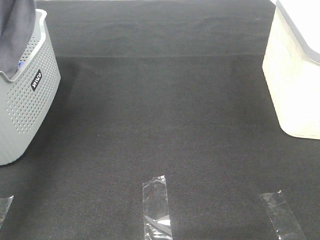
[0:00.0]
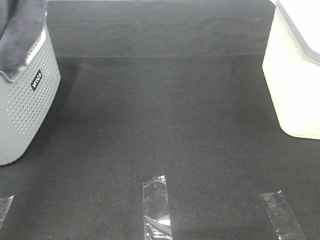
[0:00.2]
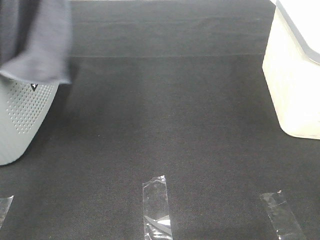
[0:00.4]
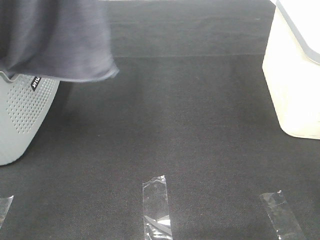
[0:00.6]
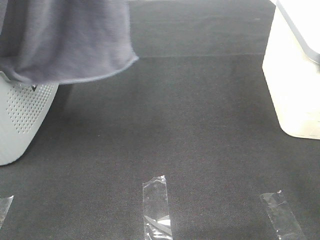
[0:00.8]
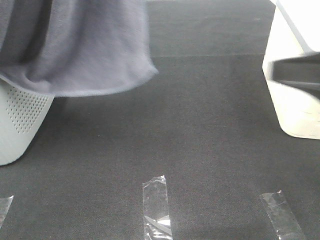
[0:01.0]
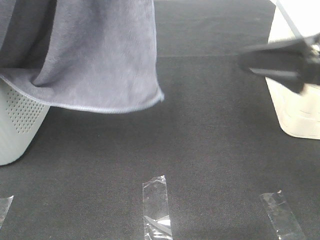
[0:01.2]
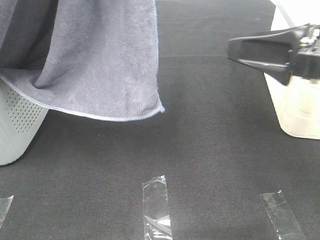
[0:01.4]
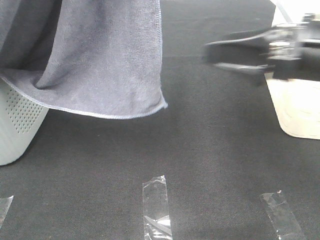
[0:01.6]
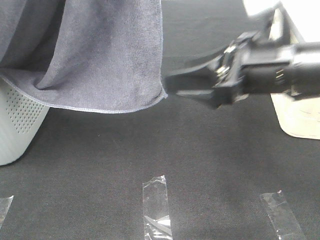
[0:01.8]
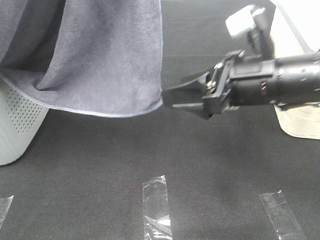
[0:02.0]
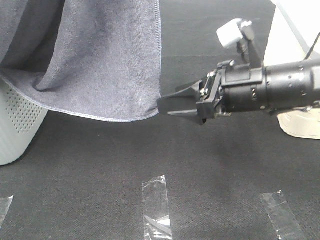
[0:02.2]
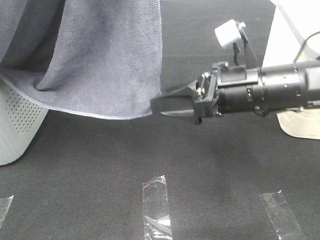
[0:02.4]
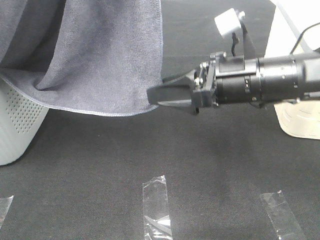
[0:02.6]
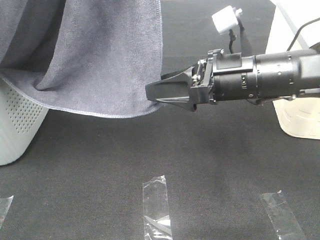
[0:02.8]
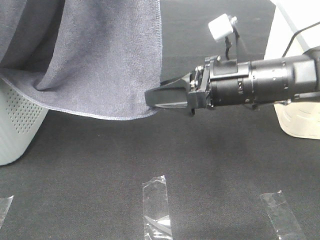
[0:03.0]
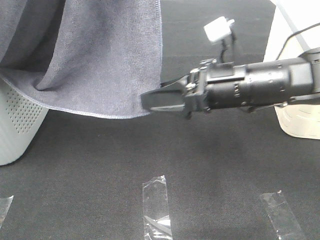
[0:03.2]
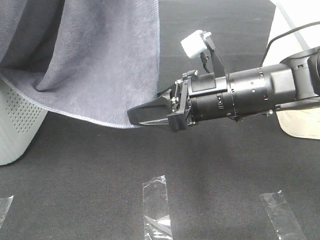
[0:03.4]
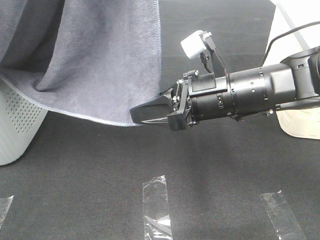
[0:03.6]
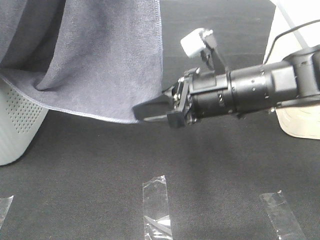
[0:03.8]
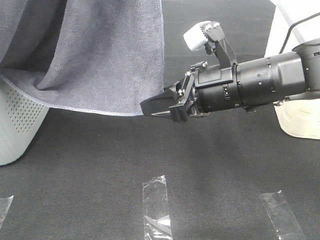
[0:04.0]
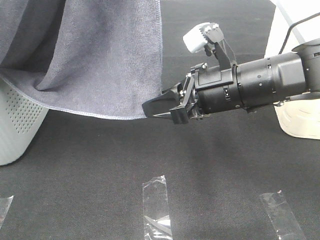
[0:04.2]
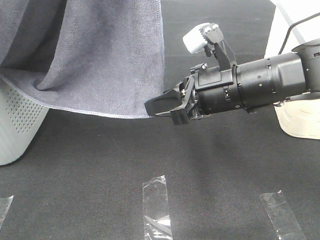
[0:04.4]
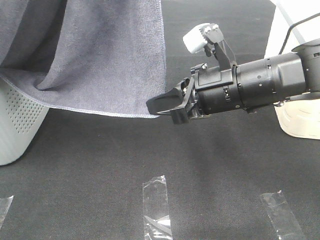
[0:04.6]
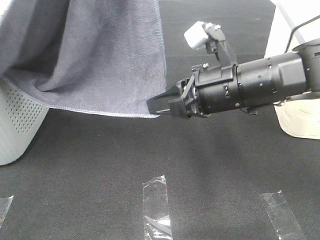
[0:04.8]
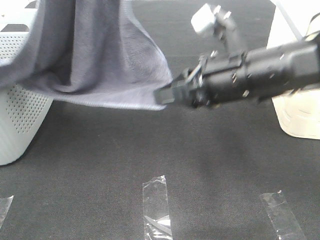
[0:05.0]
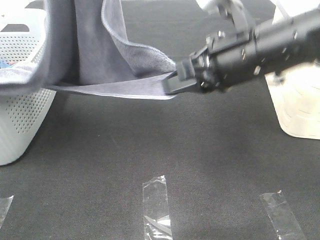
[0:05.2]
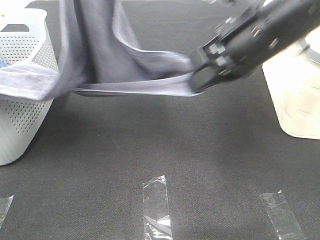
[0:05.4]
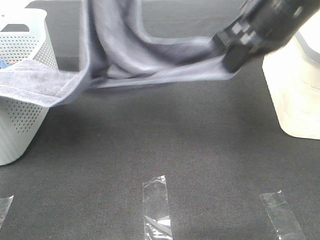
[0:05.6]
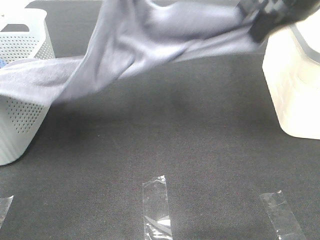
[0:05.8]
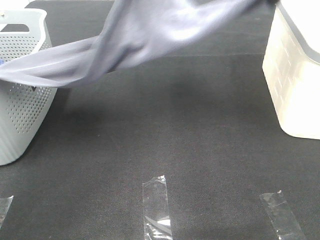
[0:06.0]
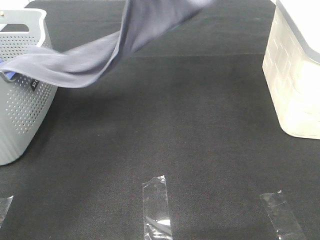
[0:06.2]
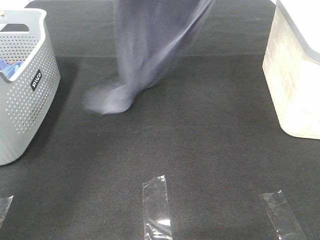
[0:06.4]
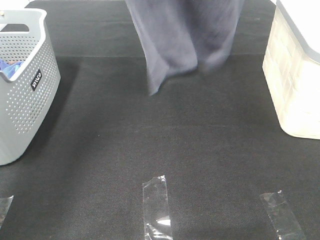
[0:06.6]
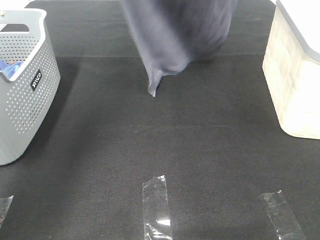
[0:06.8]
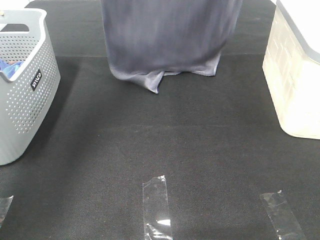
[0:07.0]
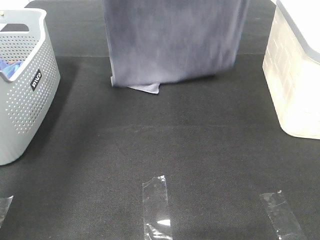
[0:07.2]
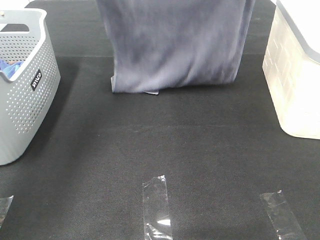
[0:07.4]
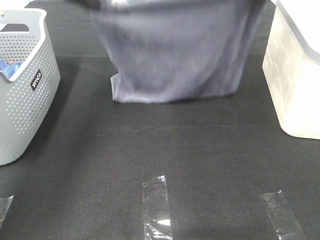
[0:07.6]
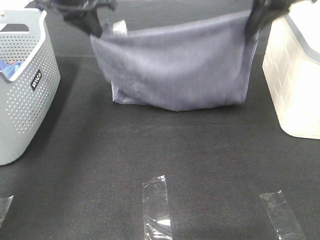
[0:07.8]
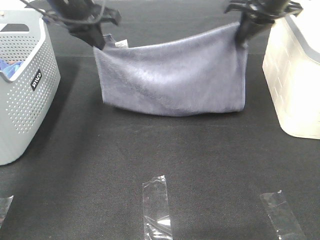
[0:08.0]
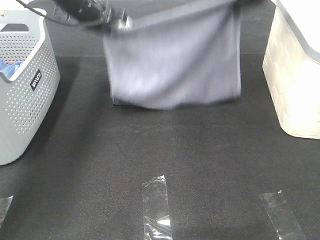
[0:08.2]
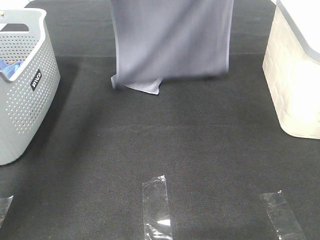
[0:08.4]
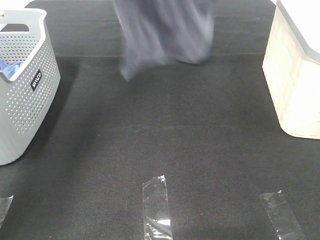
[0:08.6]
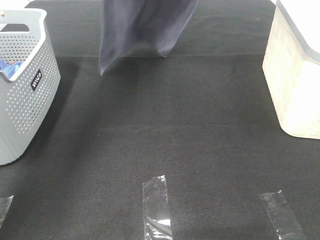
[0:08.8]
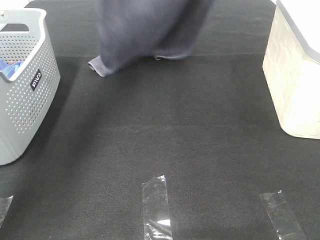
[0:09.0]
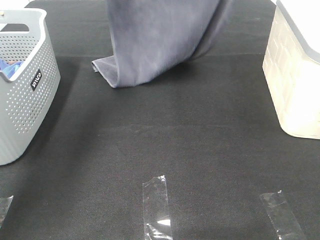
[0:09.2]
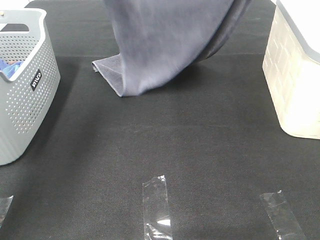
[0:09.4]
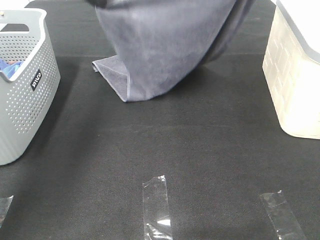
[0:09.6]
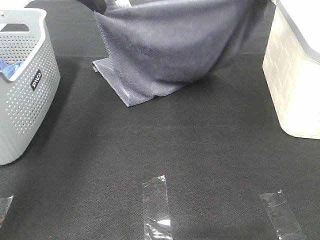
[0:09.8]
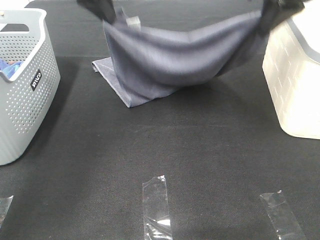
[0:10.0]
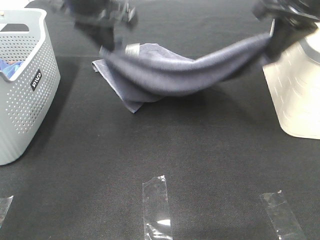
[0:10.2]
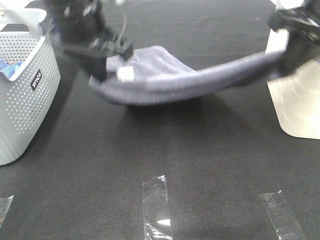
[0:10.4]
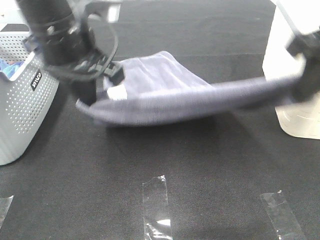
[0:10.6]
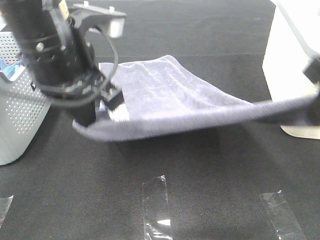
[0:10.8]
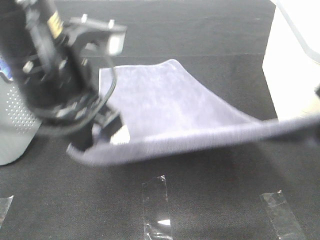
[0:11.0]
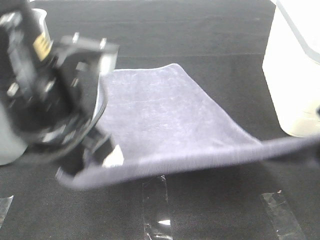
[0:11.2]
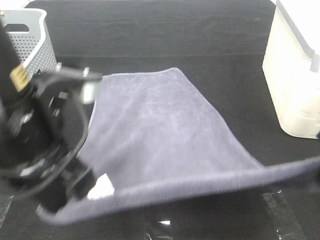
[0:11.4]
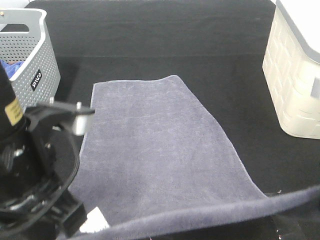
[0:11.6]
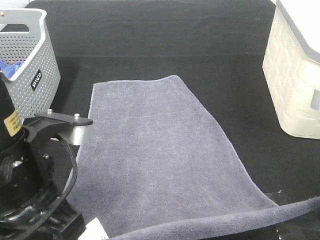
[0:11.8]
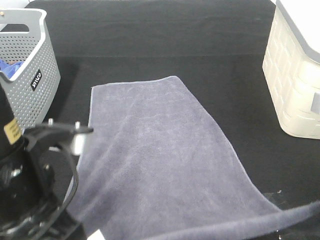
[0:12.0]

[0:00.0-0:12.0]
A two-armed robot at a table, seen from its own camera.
Task of the whole recording: Remove the towel and place it.
Step, 0:00.0 to 0:03.4: Right hand: grab a corner of the grey towel and straighten it.
Step, 0:03.6 to 0:09.0: Left hand: spread the grey towel flat on the table.
Step, 0:03.6 to 0:09.0: Right hand: spread the grey towel flat on the table.
0:00.0 to 0:01.6: The left gripper is displaced to the right and backward by roughly 15 cm; the right gripper goes about 25 cm forward and to the left.
0:01.6 to 0:03.0: The right gripper is displaced downward and to the left by some 10 cm.
0:03.0 to 0:04.4: The right gripper closes up.
0:04.4 to 0:06.0: The left gripper shifts about 25 cm forward and downward. The right gripper travels upward, forward and to the right by approximately 25 cm.
0:06.0 to 0:07.6: The left gripper is displaced to the left and downward by approximately 10 cm, while the right gripper reaches about 15 cm upward, then returns.
0:07.6 to 0:09.0: The right gripper swings up and down, approximately 20 cm each way, with 2 reversals, while the left gripper moves up and down over roughly 25 cm, changing direction 2 times.
0:09.0 to 0:10.4: The two grippers go about 20 cm backward and downward.
0:10.4 to 0:12.0: The left gripper shifts about 20 cm backward, while the right gripper shifts some 15 cm backward and downward.

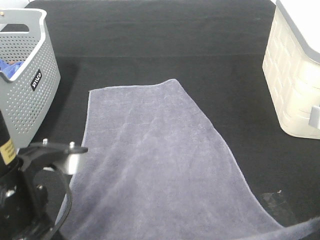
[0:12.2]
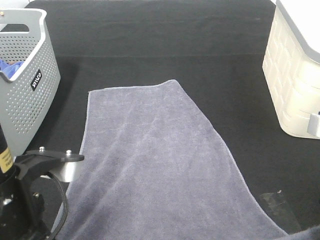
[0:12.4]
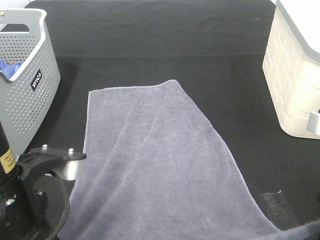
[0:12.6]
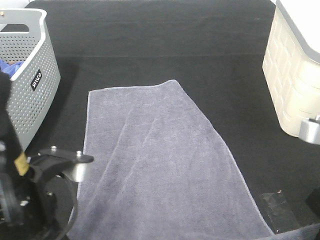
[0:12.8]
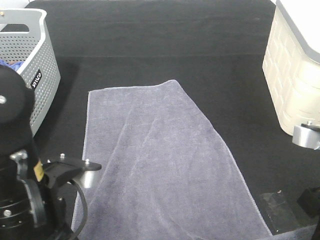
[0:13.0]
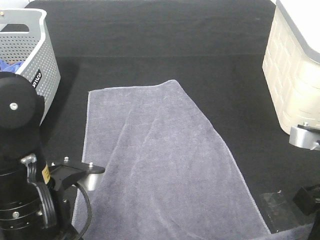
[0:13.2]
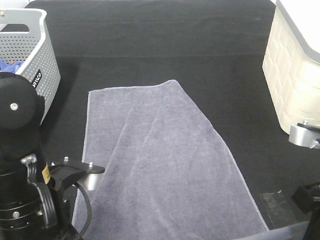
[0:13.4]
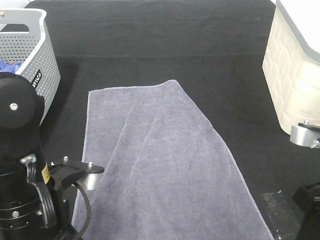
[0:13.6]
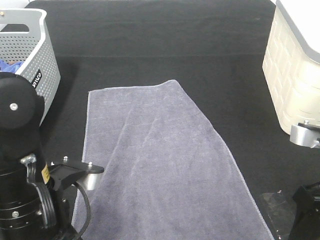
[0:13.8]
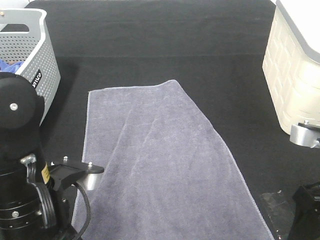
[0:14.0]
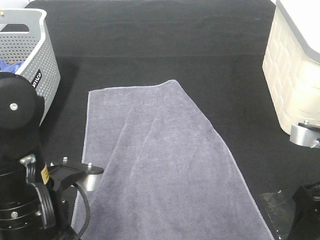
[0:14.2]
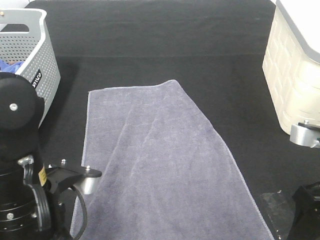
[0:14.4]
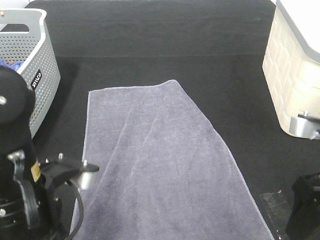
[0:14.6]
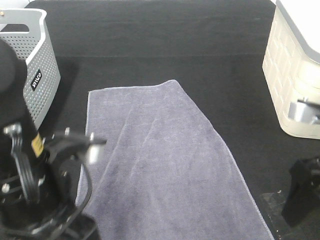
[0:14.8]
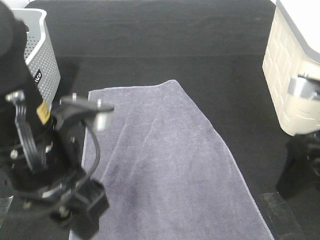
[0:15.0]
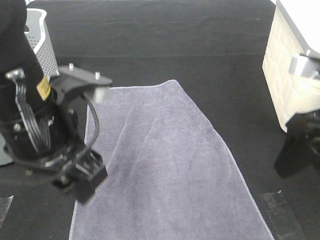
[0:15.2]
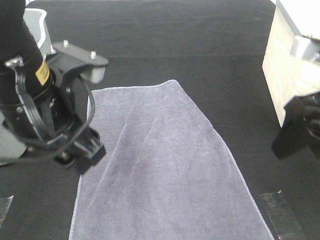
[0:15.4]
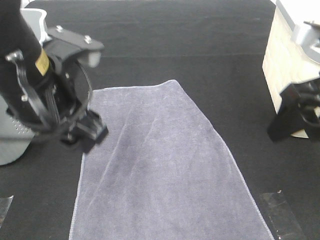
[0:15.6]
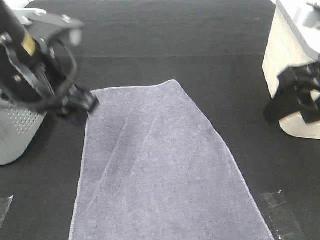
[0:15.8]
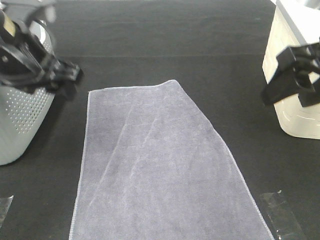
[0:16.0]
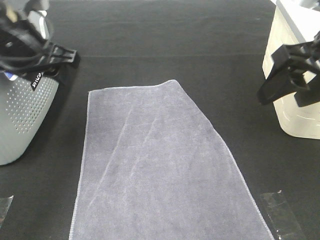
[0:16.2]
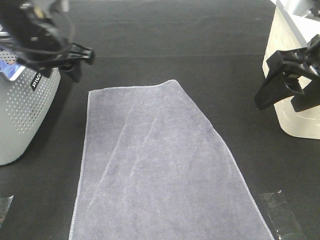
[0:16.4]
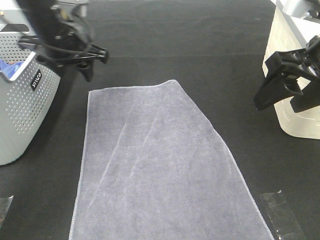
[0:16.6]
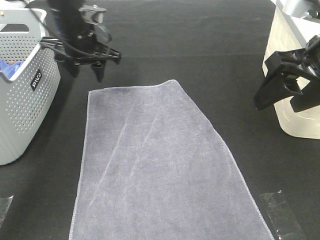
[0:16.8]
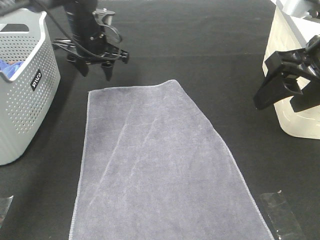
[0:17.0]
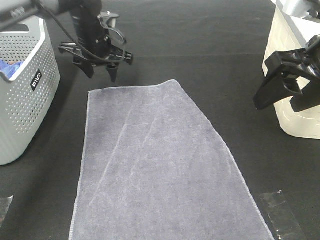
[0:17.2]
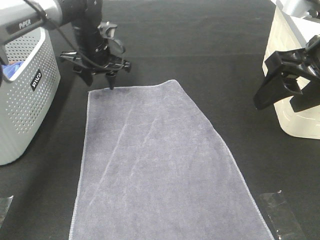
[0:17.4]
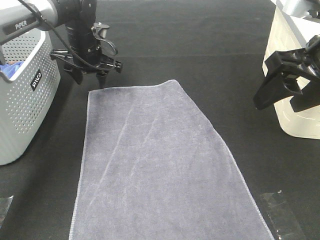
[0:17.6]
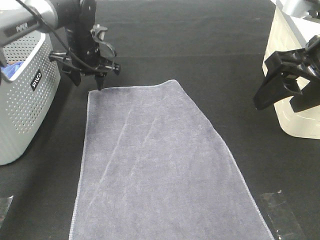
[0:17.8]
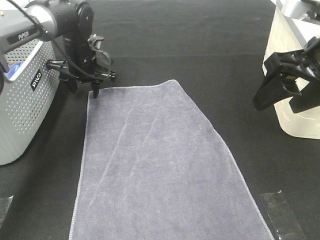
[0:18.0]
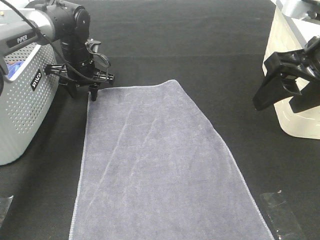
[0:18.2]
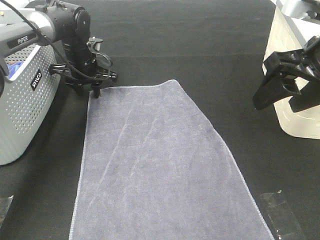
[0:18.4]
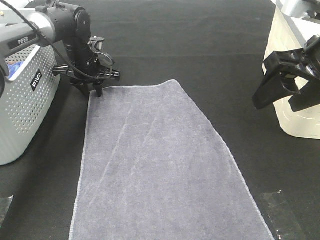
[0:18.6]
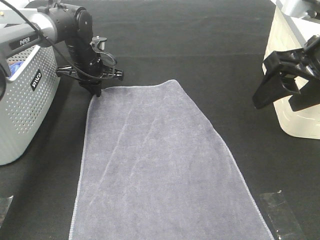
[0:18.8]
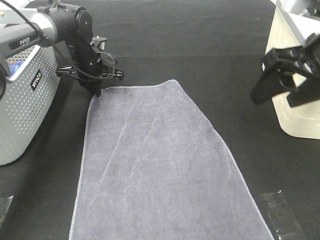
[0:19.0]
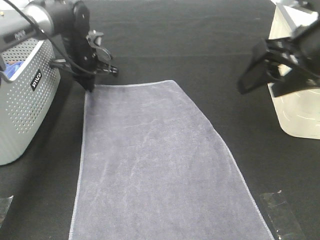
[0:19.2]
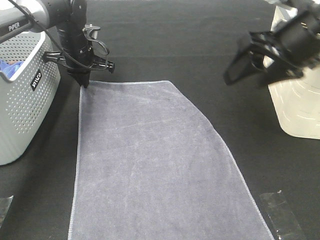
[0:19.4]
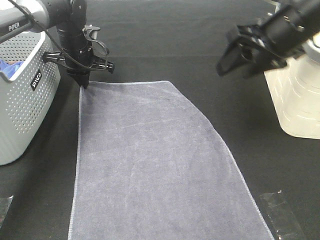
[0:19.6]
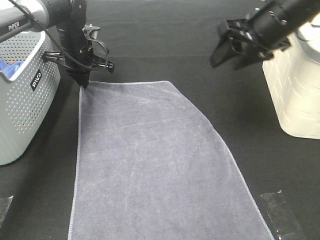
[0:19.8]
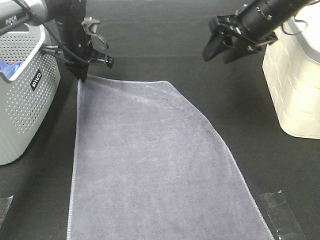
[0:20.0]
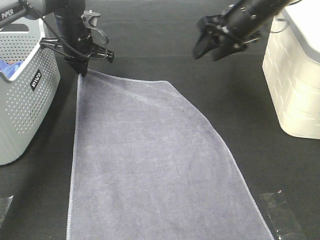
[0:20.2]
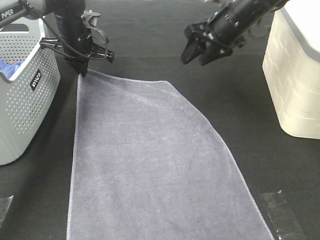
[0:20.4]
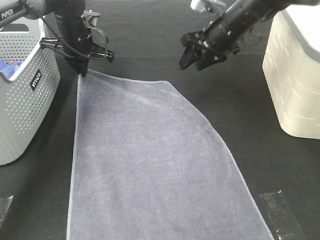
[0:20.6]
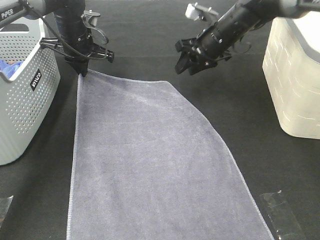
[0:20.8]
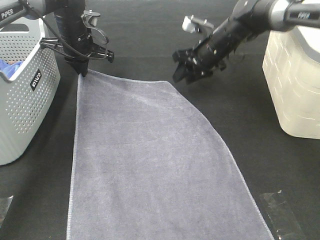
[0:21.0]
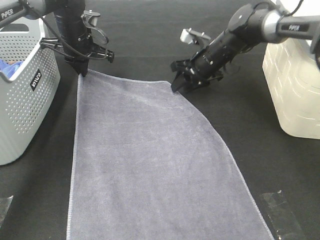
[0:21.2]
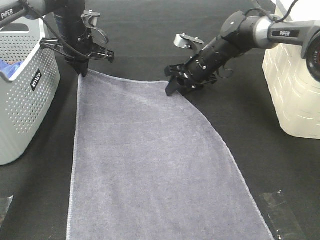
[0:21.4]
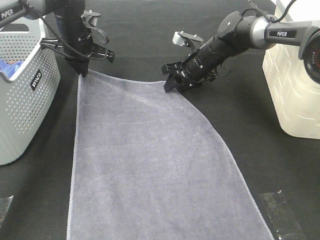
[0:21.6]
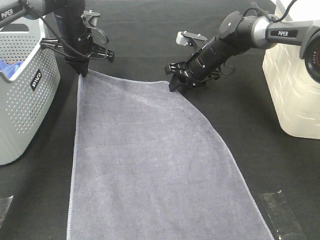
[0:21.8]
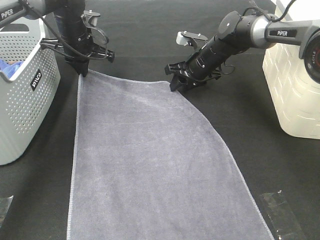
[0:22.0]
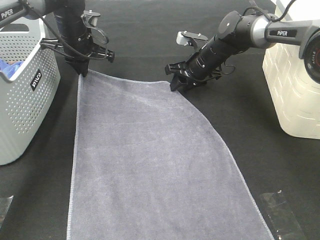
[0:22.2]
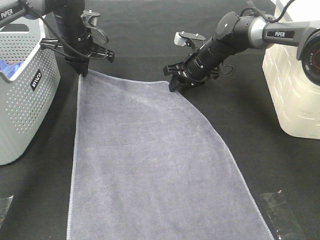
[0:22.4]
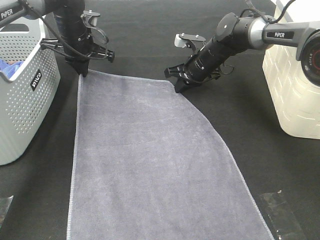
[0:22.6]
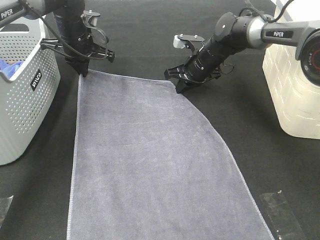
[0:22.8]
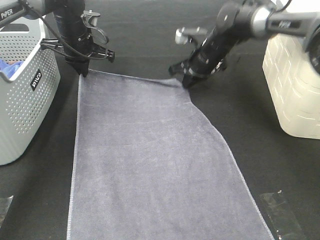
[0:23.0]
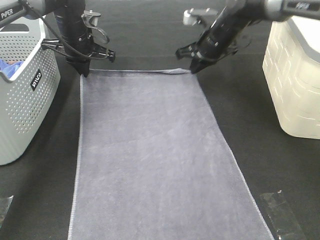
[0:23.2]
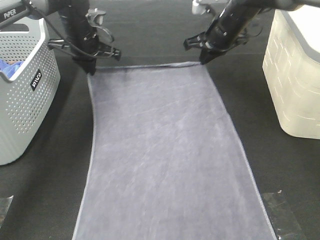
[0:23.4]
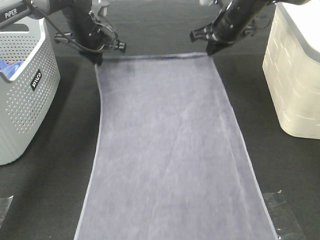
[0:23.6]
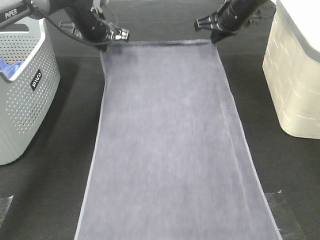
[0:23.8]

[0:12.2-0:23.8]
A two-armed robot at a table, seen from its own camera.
Task of the whole recording: Remove the towel and place it.
Step, 0:12.2 to 0:18.8: Left hand:adjust the gray towel.
Step, 0:12.2 to 0:18.8: Right hand:adjust the gray towel.
0:12.2 to 0:13.6: The right gripper opens. Meanwhile the left gripper goes about 5 cm downward, and opens.
0:13.6 to 0:15.0: The left gripper is displaced upward by approximately 5 cm, and opens its fingers. The right gripper moves roughly 5 cm.
0:15.0 to 0:16.6: The right gripper shifts roughly 5 cm forward; the left gripper moves forward, about 25 cm.
0:16.6 to 0:18.0: The left gripper heads downward and forward, covering about 15 cm.
0:18.0 to 0:19.4: The right gripper moves forward, approximately 5 cm. The left gripper closes its fingers.
0:19.4 to 0:21.0: The right gripper travels forward and downward by about 25 cm.
0:21.0 to 0:22.4: The grippers make only small movements.
0:22.4 to 0:23.8: The right gripper heads upward and to the right, covering roughly 15 cm, and closes its fingers.
